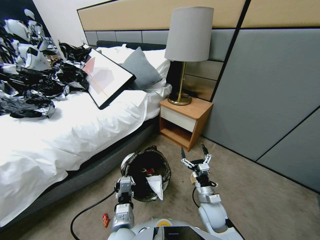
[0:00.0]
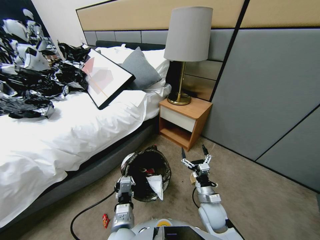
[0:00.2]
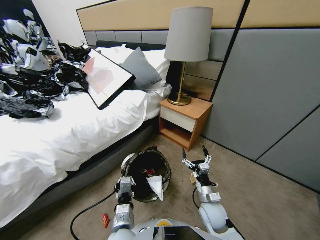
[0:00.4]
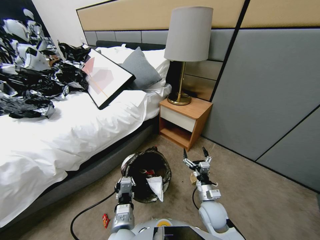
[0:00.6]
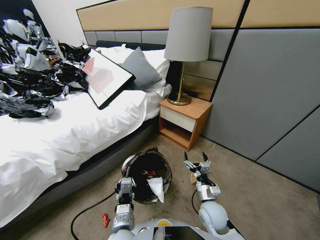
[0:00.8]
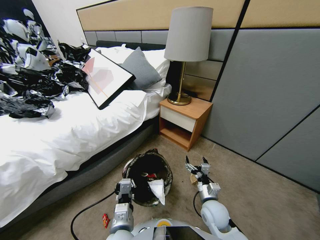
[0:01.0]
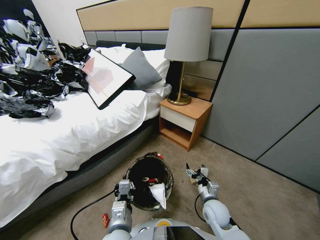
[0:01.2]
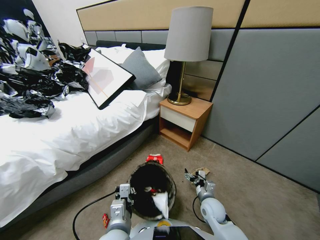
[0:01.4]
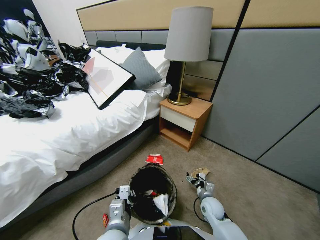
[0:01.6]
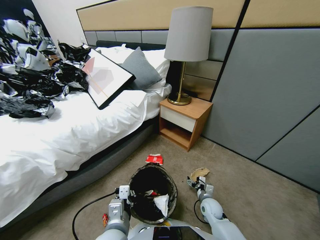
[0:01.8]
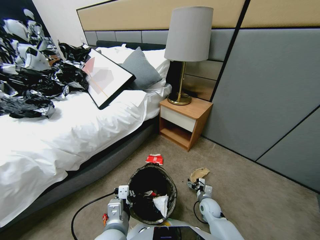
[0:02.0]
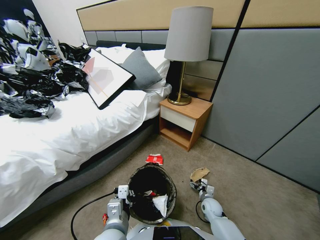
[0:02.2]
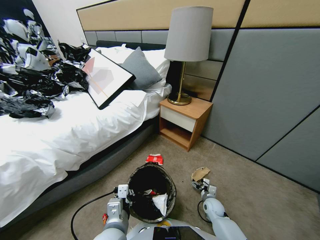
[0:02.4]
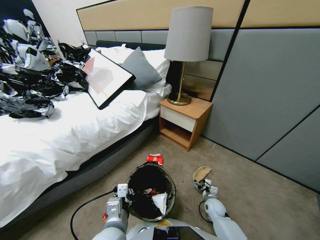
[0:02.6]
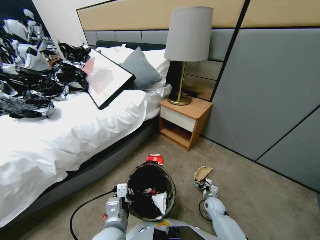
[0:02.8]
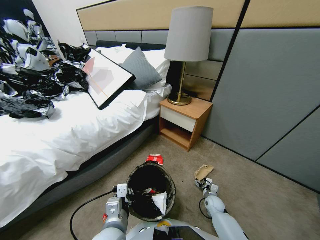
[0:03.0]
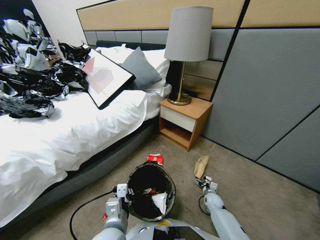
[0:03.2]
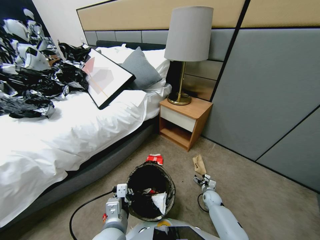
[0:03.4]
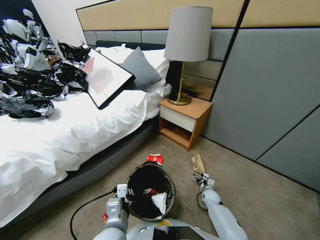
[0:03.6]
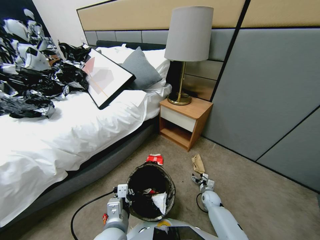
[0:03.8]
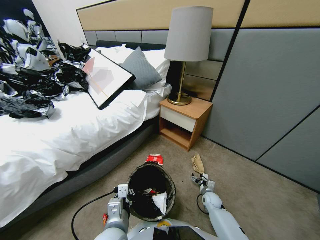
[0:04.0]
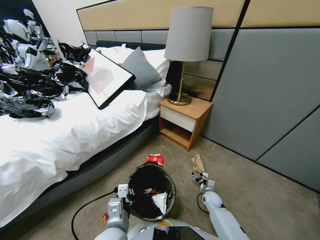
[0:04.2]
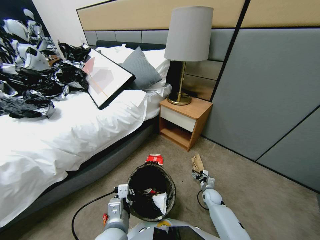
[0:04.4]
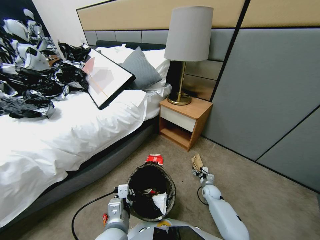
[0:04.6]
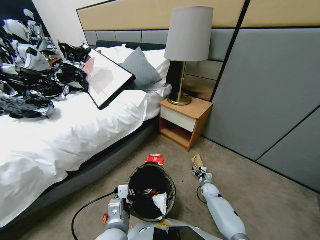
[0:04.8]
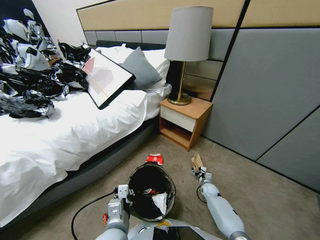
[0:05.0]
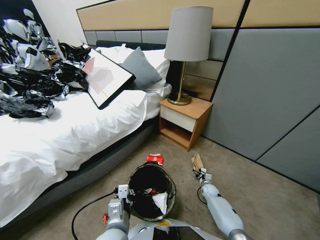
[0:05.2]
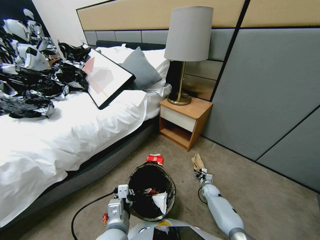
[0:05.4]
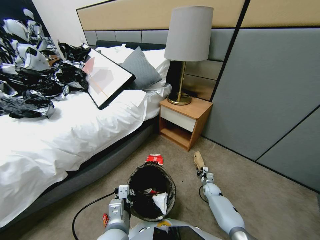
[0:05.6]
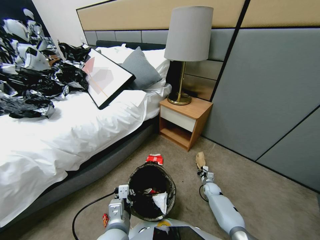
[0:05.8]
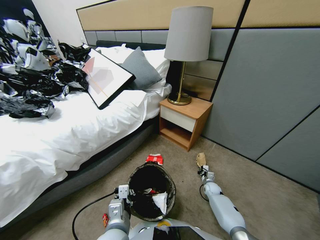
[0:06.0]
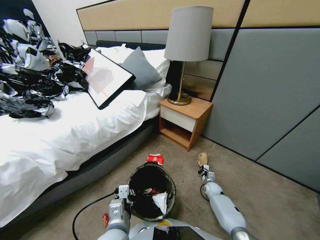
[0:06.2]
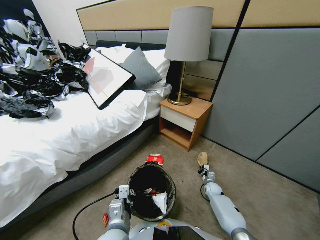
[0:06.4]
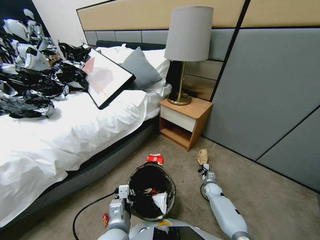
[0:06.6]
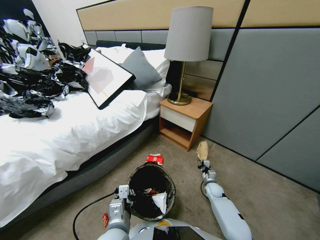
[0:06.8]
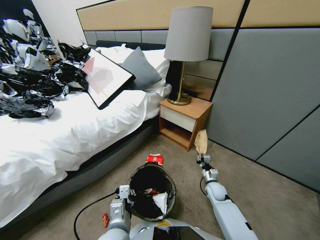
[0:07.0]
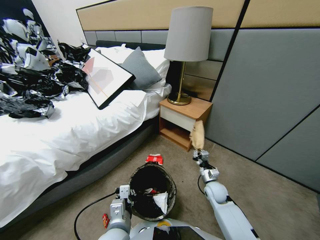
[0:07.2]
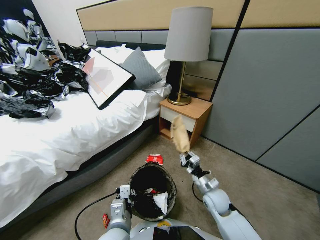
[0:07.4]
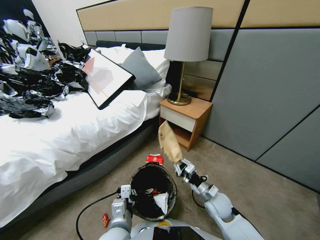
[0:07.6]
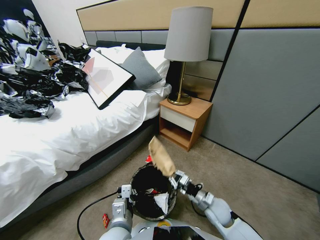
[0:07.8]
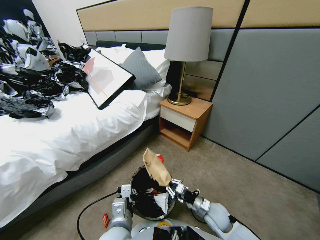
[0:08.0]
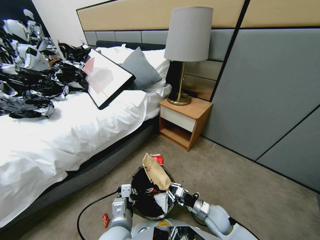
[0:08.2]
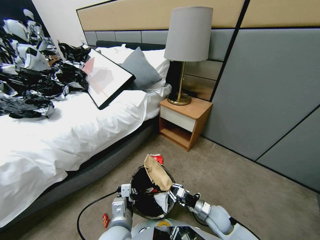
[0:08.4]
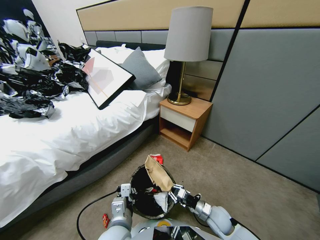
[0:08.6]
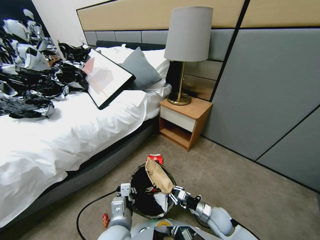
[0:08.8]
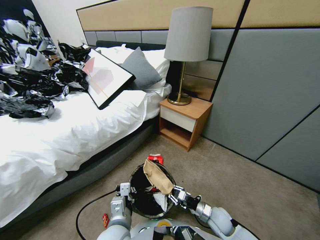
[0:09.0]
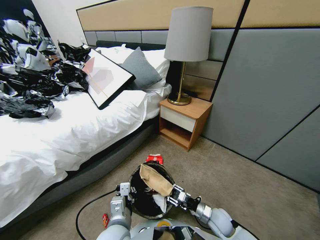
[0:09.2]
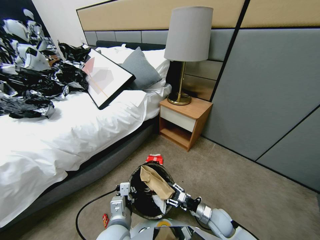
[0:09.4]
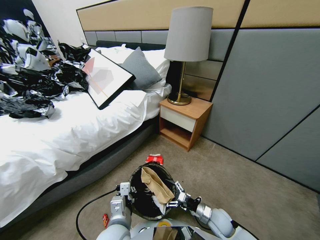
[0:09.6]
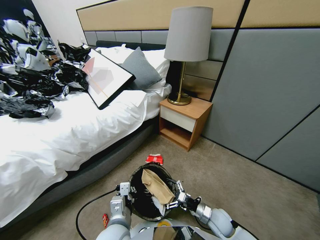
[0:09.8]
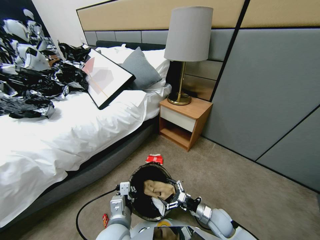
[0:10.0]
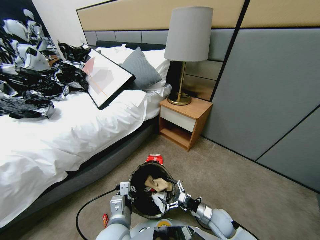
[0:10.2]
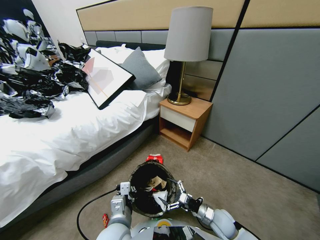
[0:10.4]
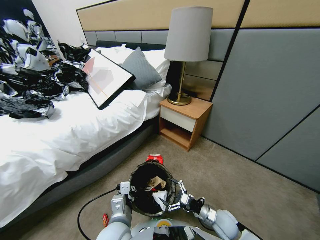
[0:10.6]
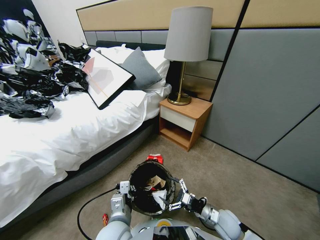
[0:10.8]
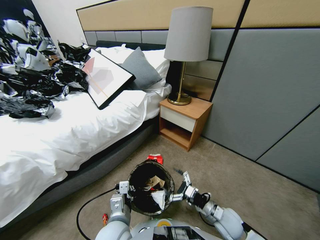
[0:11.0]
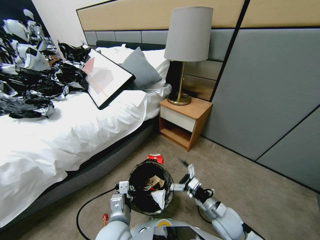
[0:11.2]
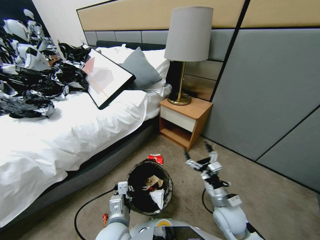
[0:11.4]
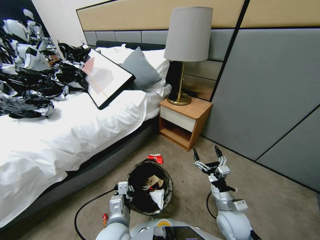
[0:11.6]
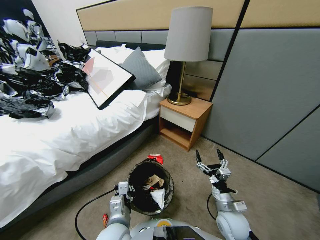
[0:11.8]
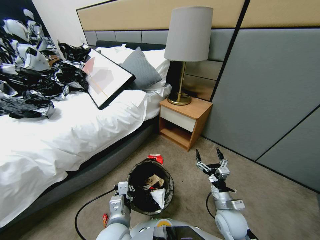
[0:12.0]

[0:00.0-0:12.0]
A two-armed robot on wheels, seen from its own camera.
Task of the whole recording: Pick up the trash bin, then pick up the garbage from the floor and place it into the trash bin.
0:00.0 to 0:01.6: The left gripper moves roughly 5 cm, while the right gripper shifts roughly 10 cm downward and to the right.
0:01.6 to 0:03.0: The right gripper heads downward and to the right, covering some 10 cm.
0:03.0 to 0:04.4: The grippers make only small movements.
0:04.4 to 0:06.0: The right gripper closes up.
0:06.0 to 0:07.6: The right gripper heads upward, backward and to the left, covering approximately 25 cm.
0:07.6 to 0:09.0: The right gripper goes some 5 cm downward.
0:09.0 to 0:10.4: The right gripper opens.
0:10.4 to 0:12.0: The right gripper goes about 5 cm upward.

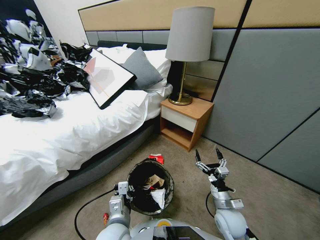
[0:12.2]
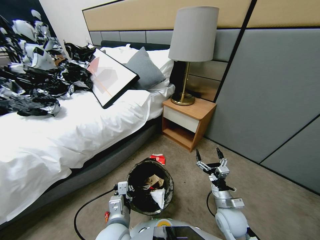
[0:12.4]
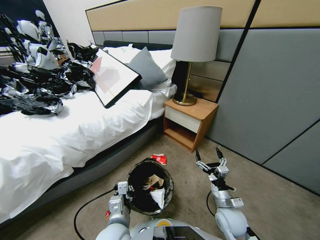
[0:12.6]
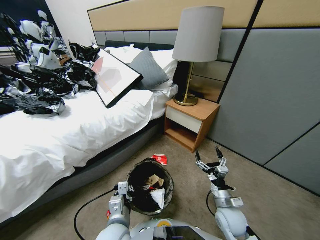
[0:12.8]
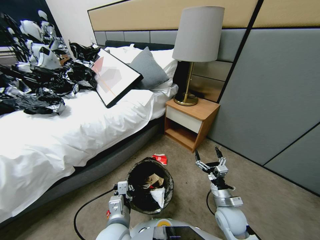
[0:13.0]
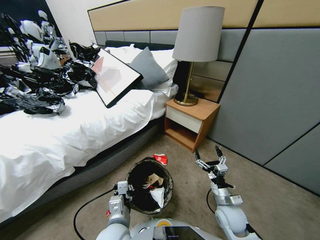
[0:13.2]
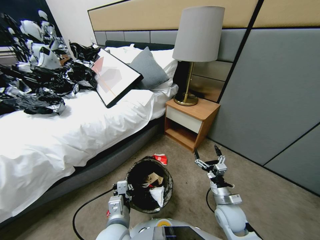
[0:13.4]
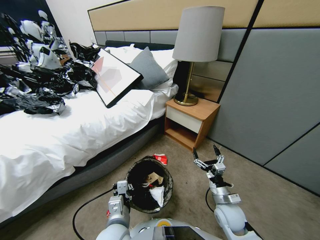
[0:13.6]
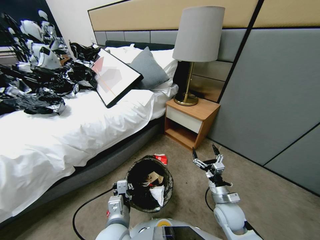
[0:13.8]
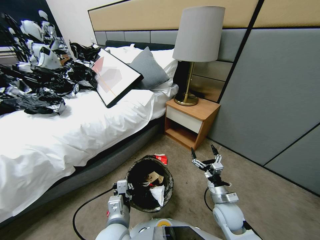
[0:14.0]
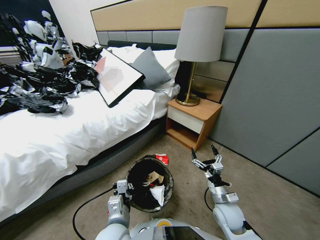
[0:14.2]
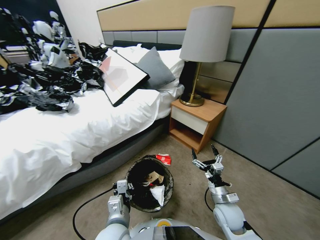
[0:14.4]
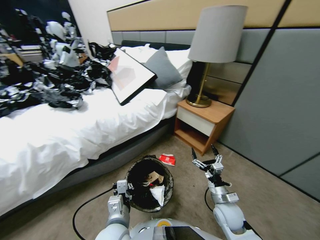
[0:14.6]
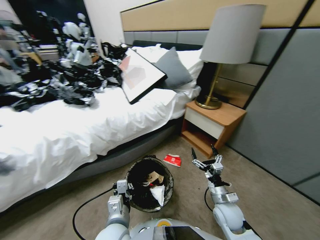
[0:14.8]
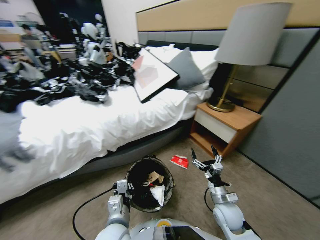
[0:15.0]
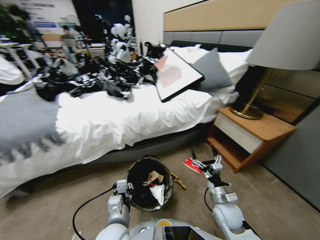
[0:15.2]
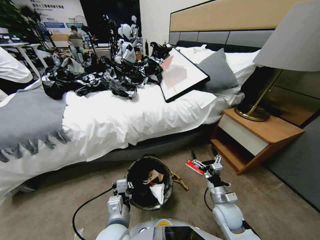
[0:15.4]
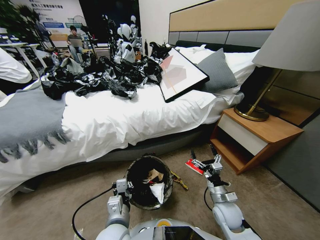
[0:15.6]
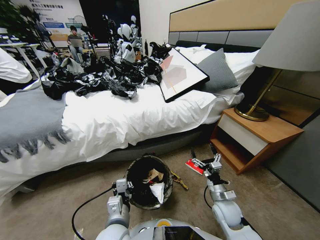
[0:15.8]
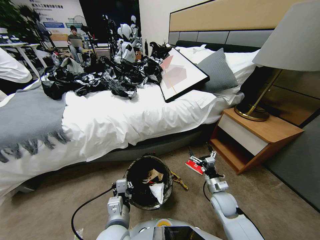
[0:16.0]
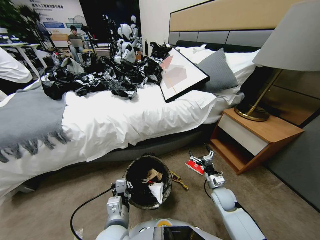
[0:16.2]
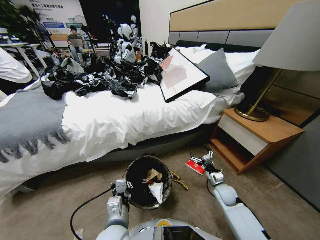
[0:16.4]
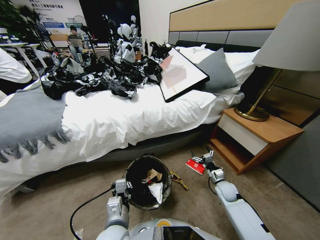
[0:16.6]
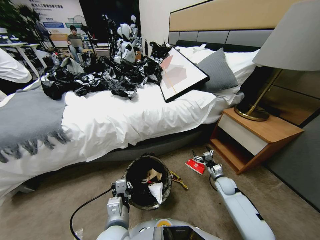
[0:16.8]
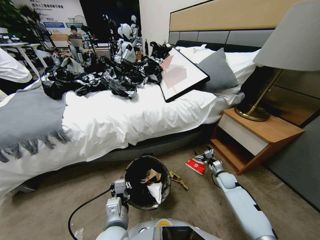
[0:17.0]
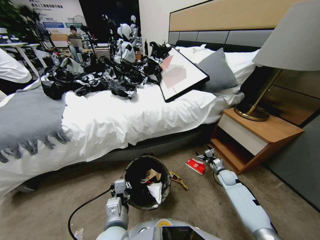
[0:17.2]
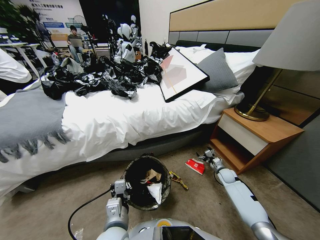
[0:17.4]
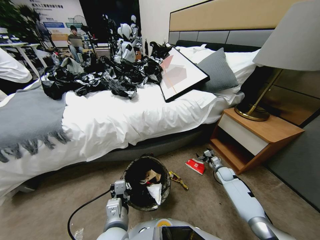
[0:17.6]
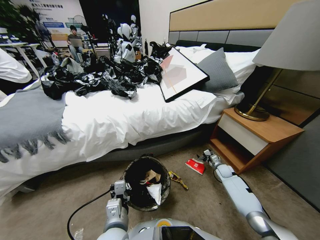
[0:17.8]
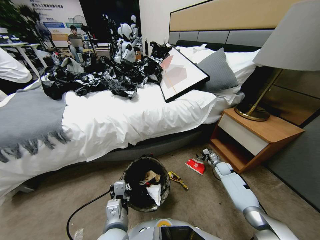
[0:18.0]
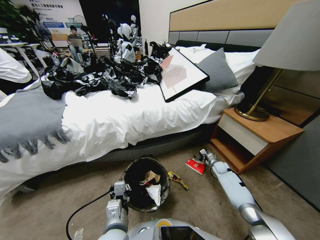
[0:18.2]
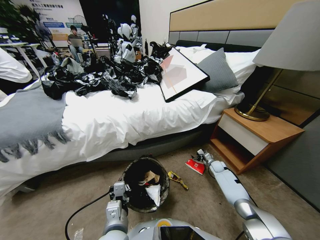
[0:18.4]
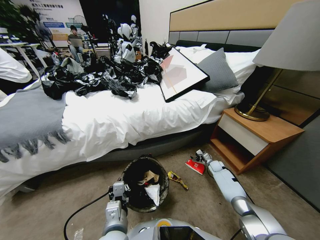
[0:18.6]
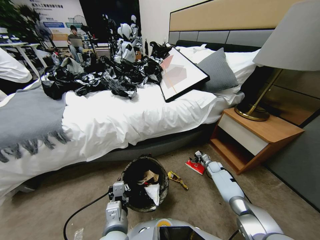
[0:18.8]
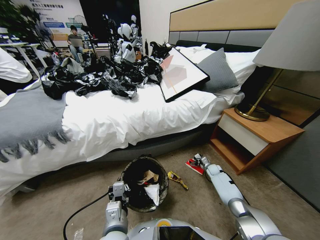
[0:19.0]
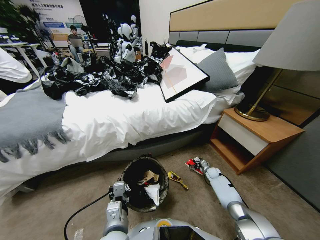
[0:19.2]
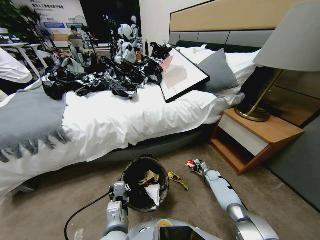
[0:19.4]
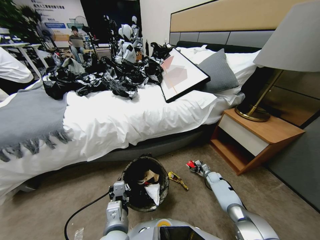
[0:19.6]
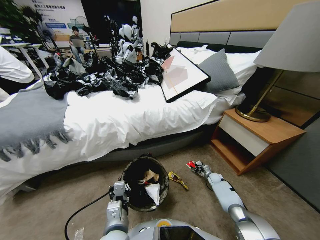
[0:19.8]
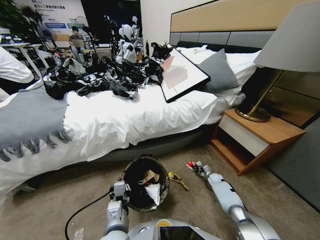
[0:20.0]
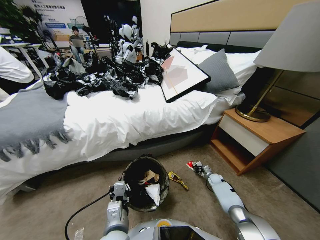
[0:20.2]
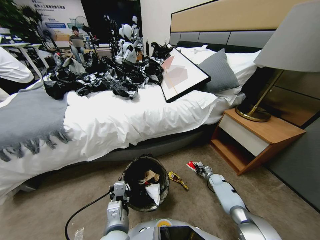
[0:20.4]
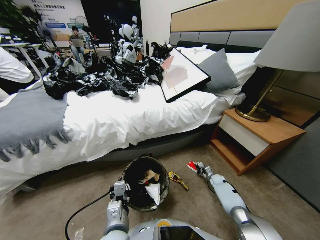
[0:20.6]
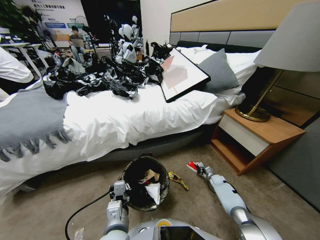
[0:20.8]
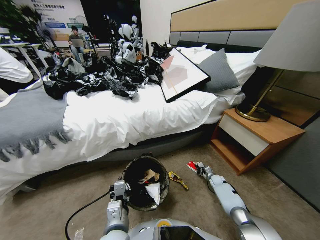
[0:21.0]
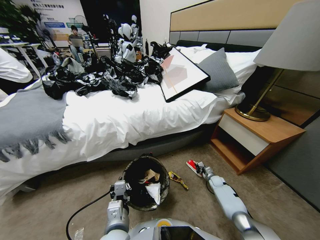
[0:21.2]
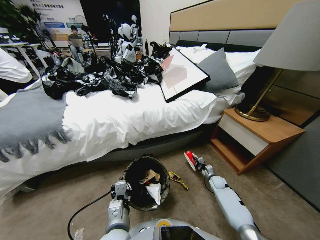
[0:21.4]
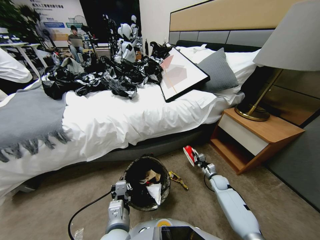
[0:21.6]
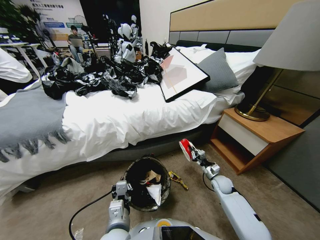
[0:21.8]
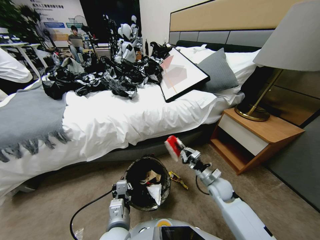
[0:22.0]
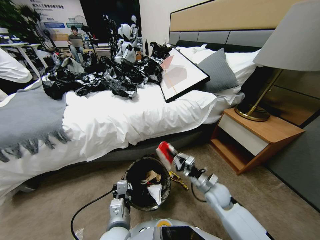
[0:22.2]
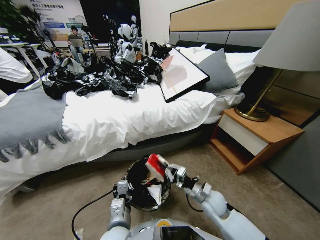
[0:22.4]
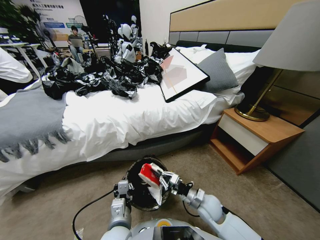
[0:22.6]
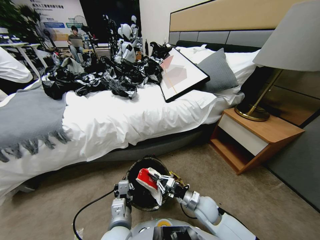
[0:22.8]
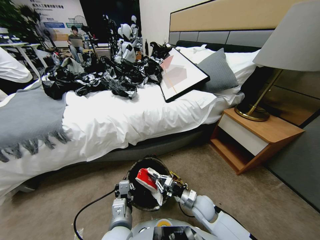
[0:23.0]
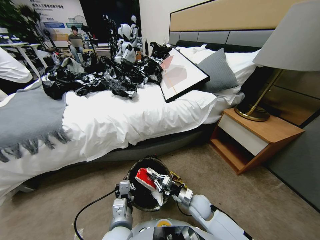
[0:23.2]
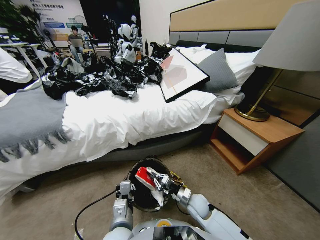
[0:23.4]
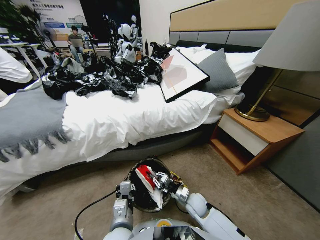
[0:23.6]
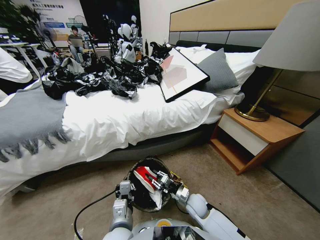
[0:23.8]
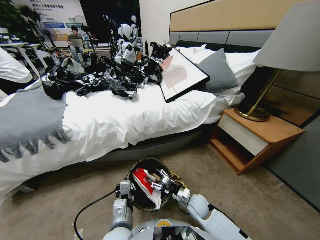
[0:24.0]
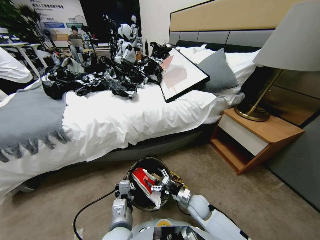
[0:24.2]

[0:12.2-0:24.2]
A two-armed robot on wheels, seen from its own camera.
Task of the whole recording: Pick up the trash bin, then pick up the garbage from the floor and place it into the trash bin.
0:15.2 to 0:16.6: The right gripper is displaced forward, to the right and downward by approximately 15 cm.
0:16.6 to 0:18.2: The right gripper heads forward, covering roughly 15 cm.
0:18.2 to 0:19.8: The right gripper moves downward, about 10 cm, and closes up.
0:19.8 to 0:21.2: The right gripper closes.
0:21.2 to 0:22.6: The right gripper travels to the left, backward and upward by approximately 30 cm.
0:22.6 to 0:24.2: The right gripper ends up about 5 cm from where it was, and opens its fingers.
